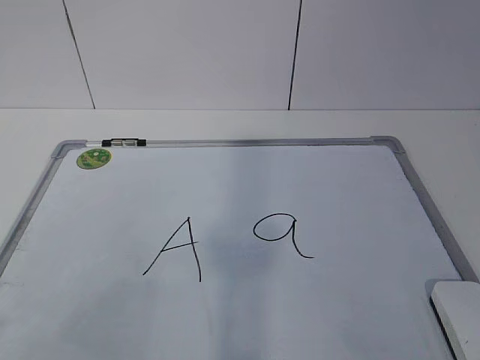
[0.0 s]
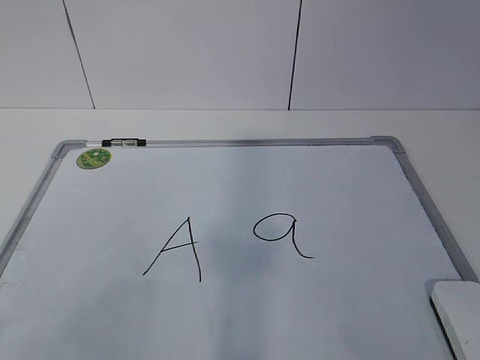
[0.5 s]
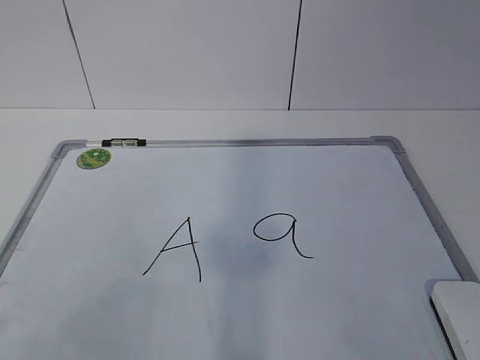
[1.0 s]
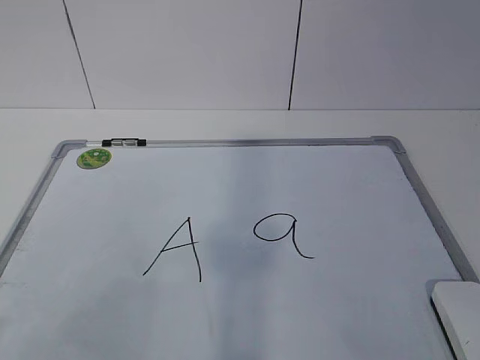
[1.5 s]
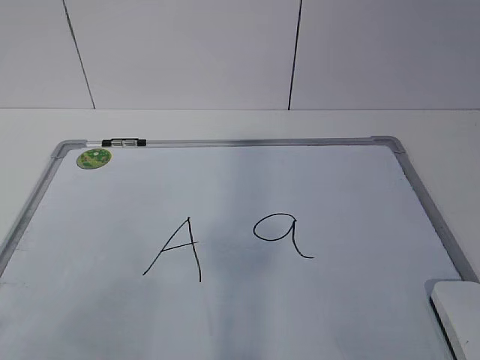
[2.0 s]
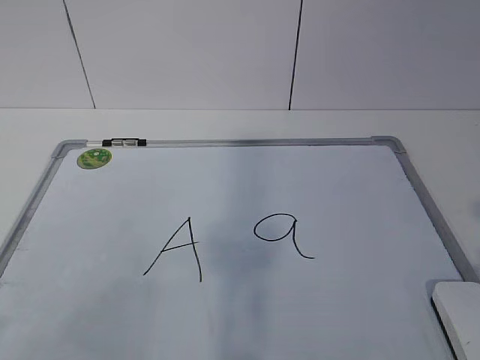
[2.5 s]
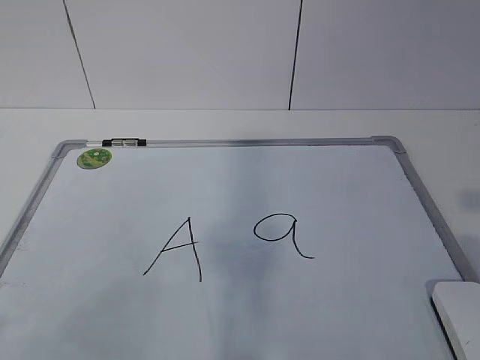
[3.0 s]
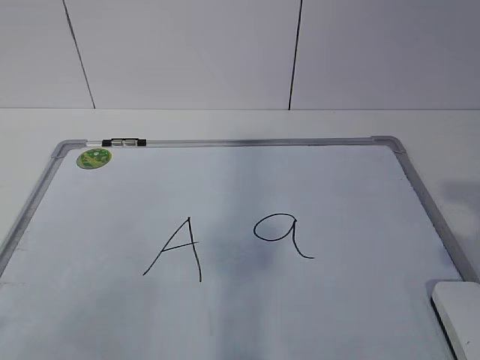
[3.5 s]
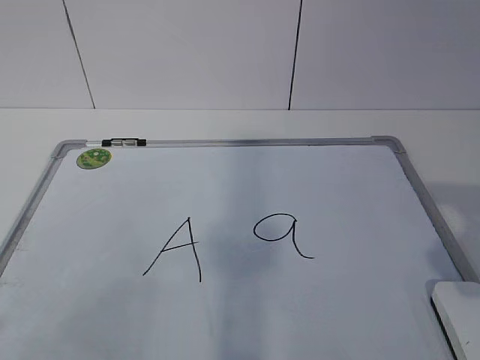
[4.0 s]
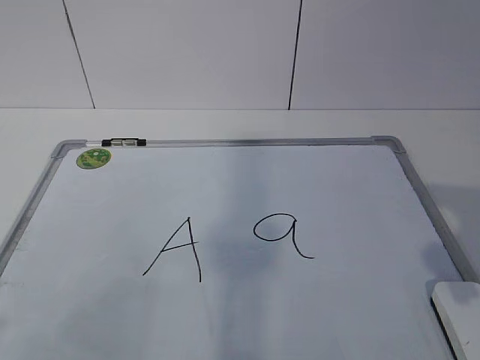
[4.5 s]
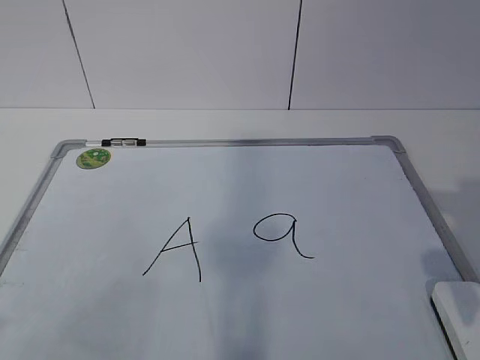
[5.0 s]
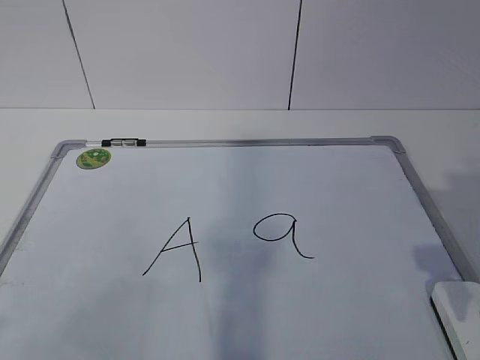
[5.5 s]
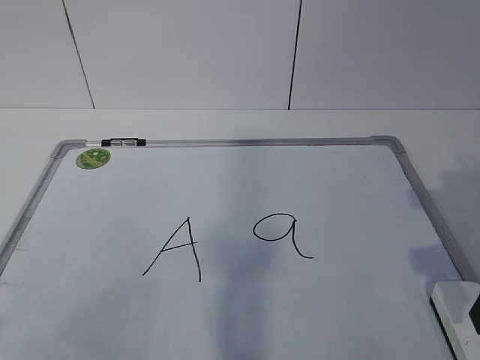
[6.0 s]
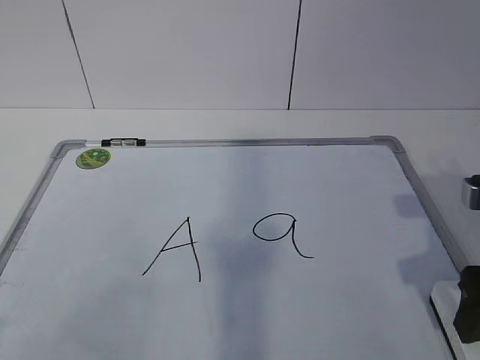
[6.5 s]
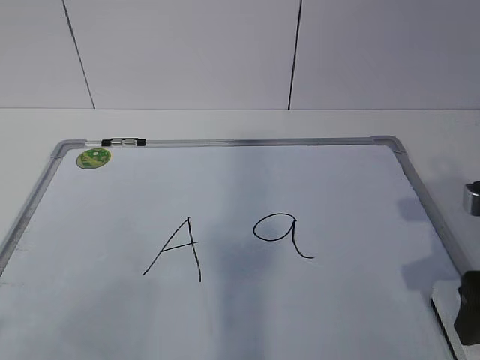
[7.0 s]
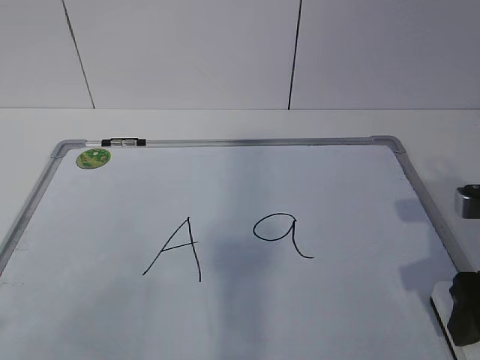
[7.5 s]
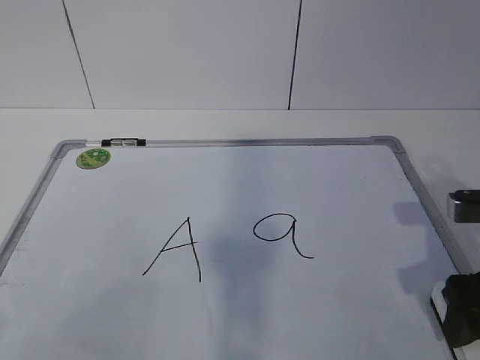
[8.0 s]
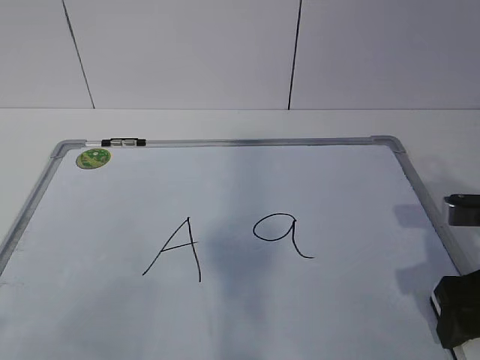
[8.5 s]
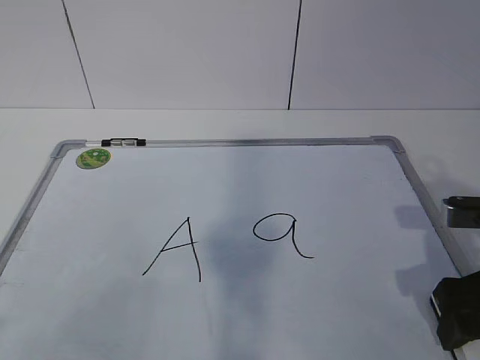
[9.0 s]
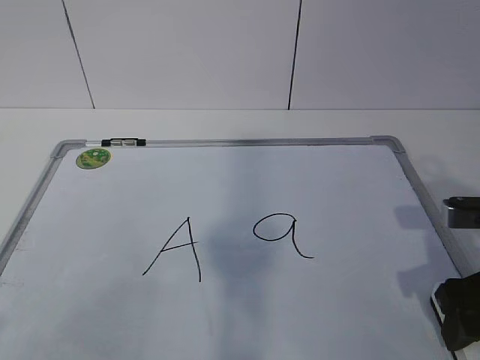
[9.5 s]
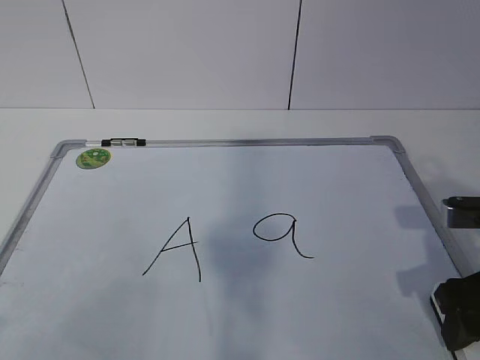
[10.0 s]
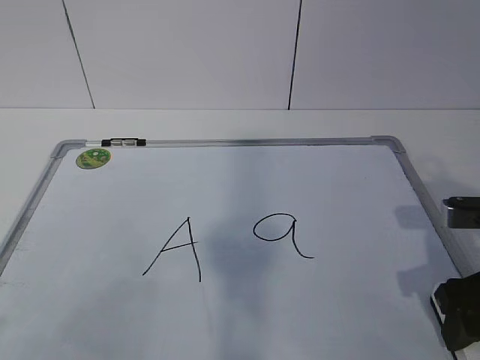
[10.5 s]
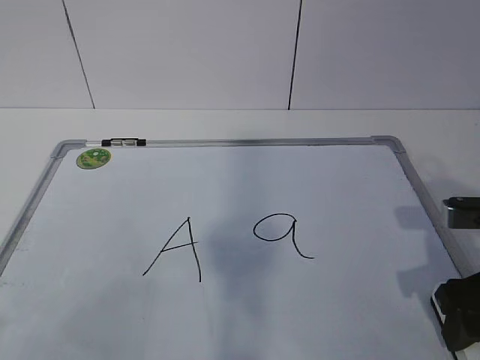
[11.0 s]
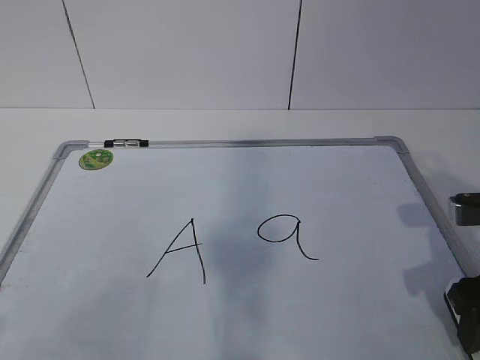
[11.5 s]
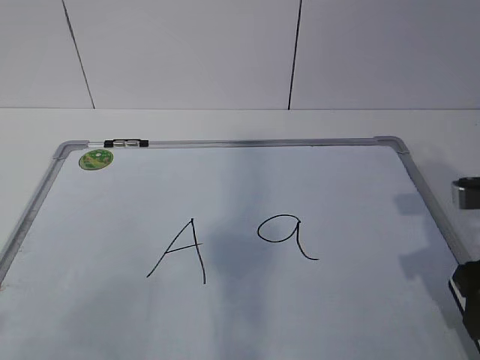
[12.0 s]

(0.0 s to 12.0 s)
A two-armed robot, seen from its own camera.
Task of the whole recording: pick up the eraser on the blackboard and erase the letter "a".
Step, 0.0 s - 7.5 s: Grab the eraser with your right hand.
4.0 s - 6.0 s: The right gripper moves forward and downward, approximately 10 cm, and opens.
6.0 s - 8.0 s: The grippers move only a little.
8.0 s - 10.0 s: The right gripper closes its fingers.
10.0 s - 12.0 s: The grippers stay close to where they were, moving slightly.

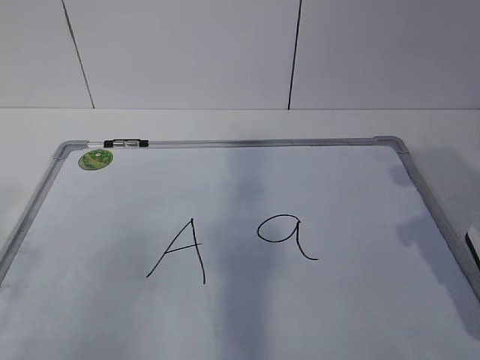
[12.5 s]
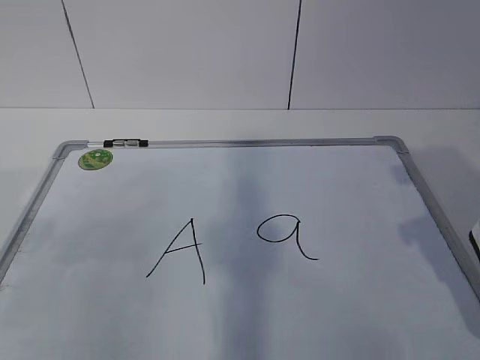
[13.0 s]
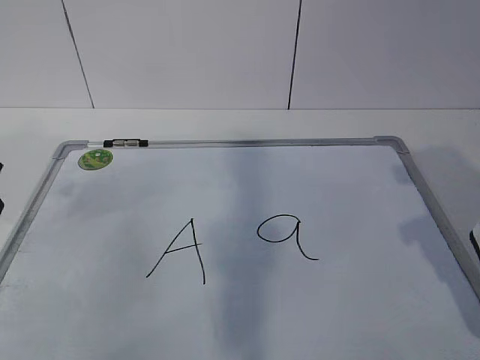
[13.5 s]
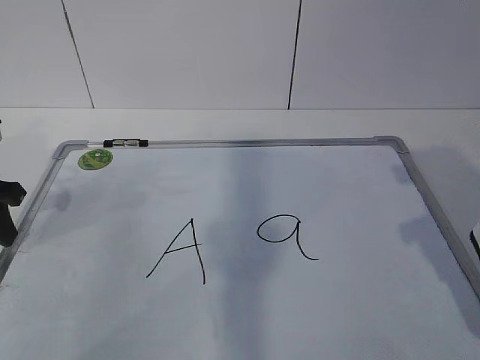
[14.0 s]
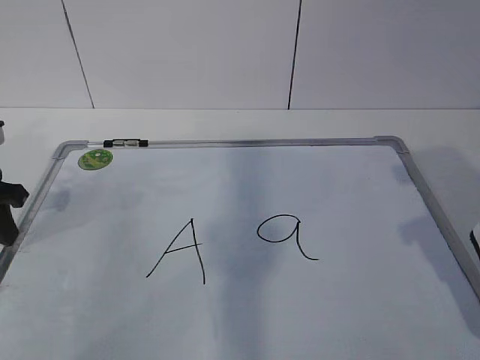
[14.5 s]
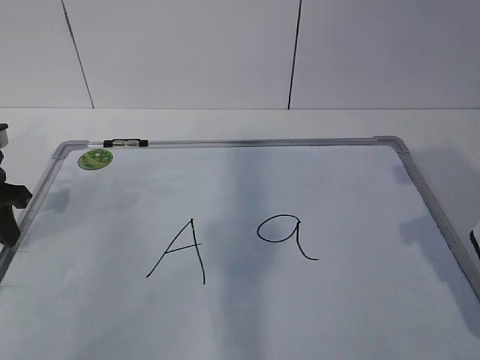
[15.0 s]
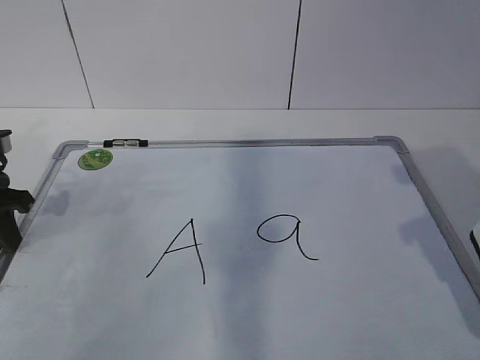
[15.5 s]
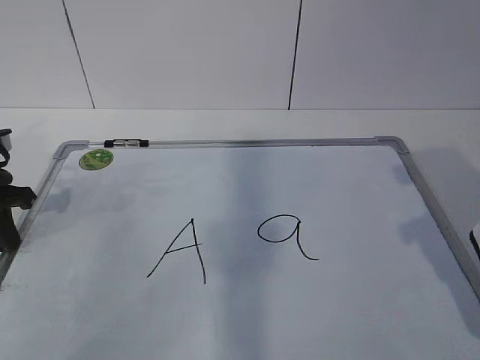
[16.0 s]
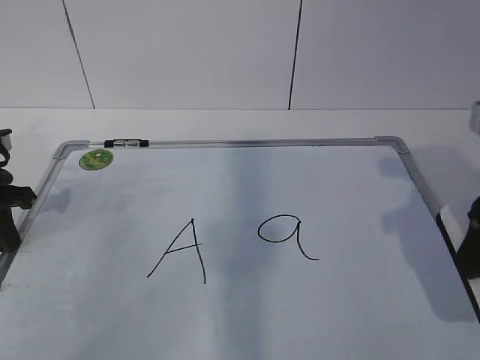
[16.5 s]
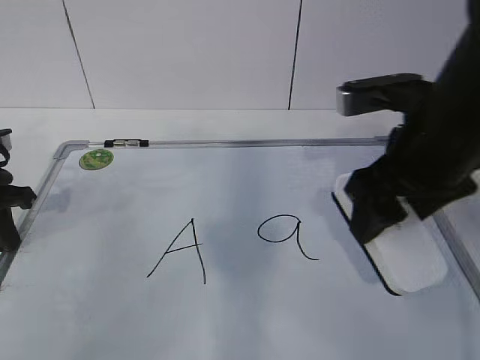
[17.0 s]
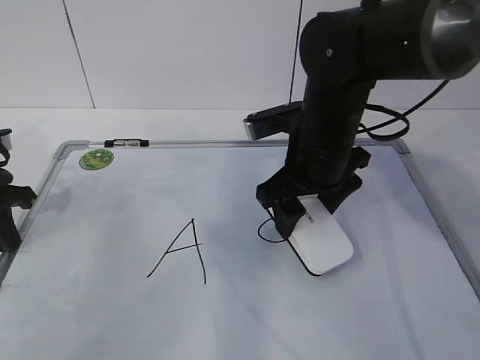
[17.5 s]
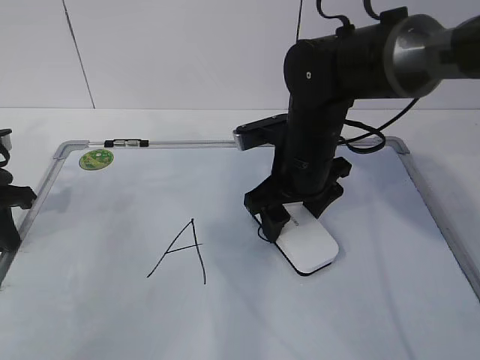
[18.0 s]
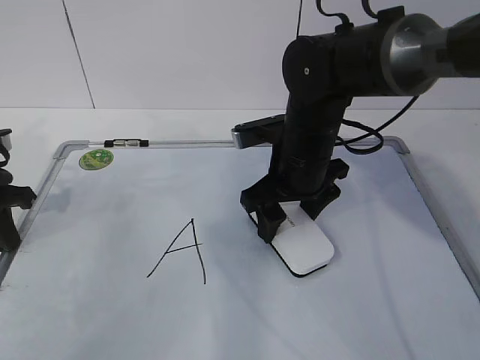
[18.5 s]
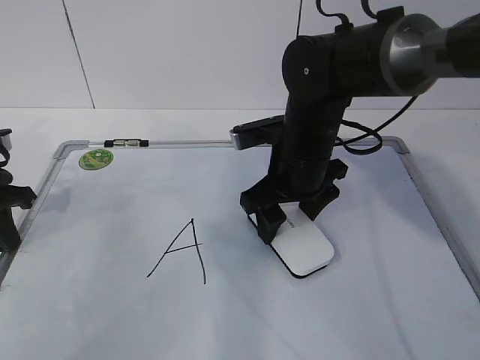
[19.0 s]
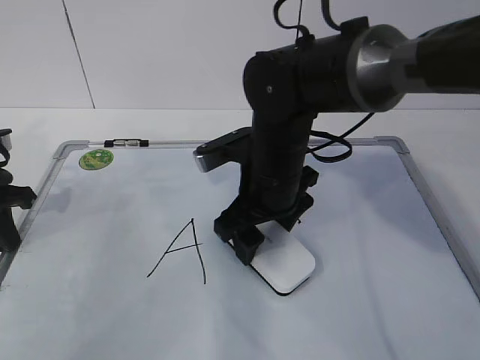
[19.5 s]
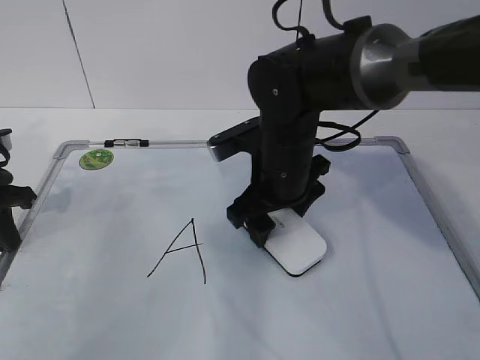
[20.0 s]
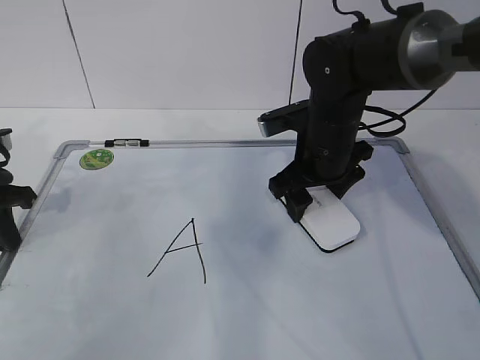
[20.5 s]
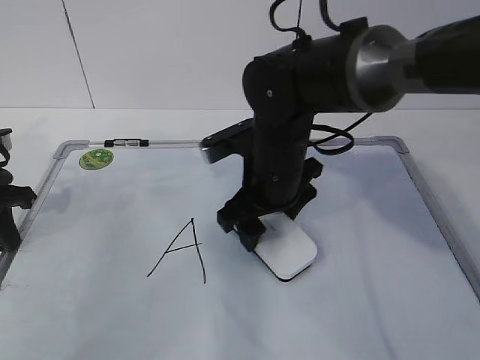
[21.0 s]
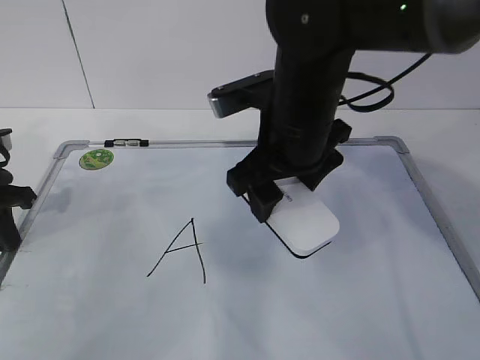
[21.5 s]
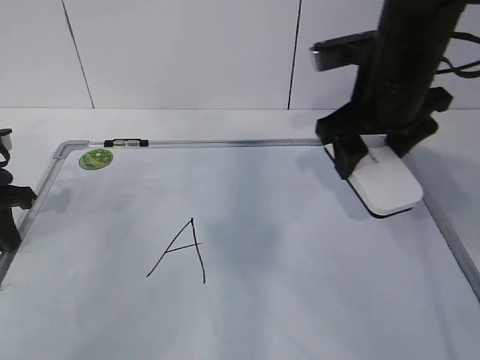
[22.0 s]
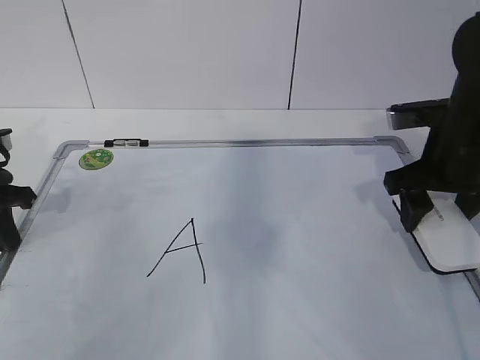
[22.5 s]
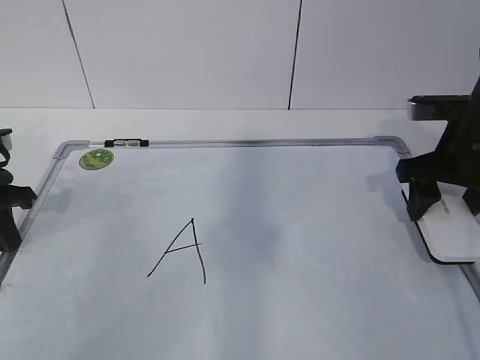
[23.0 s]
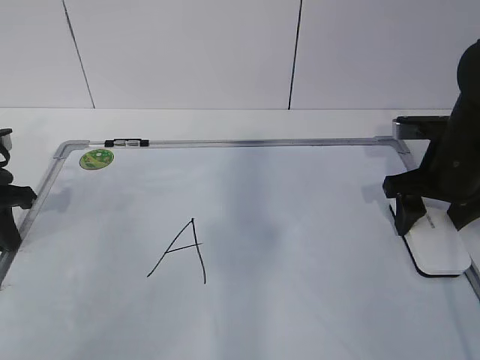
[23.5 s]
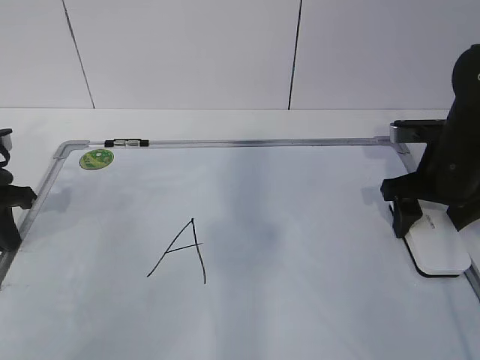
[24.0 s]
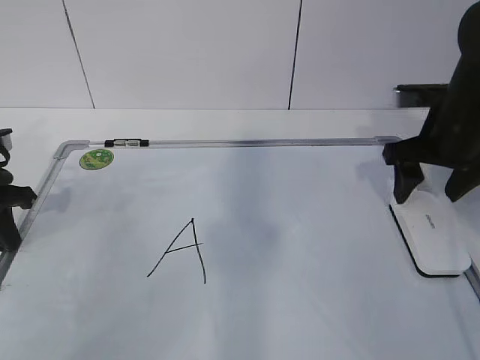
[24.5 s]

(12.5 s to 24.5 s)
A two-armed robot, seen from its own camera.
Task of the whole recording: pick up the eraser on the blackboard and erase the letter "a".
Step, 13.5 s - 17.5 s: Erase the letter a with your right hand.
Step, 18.0 s - 20.0 s: Put down the eraser with your right hand.
12.5 s - 14.5 s: The left gripper shifts approximately 25 cm forward and downward.
14.5 s - 16.5 s: The left gripper closes up.
16.5 s - 18.5 s: The right gripper heads to the left, forward and downward, covering some 25 cm.
18.5 s - 20.5 s: The grippers stay close to where they were, moving slightly.
20.5 s - 22.5 s: The right gripper goes about 15 cm to the right and backward.
22.5 s - 24.5 s: The right gripper opens its fingers.

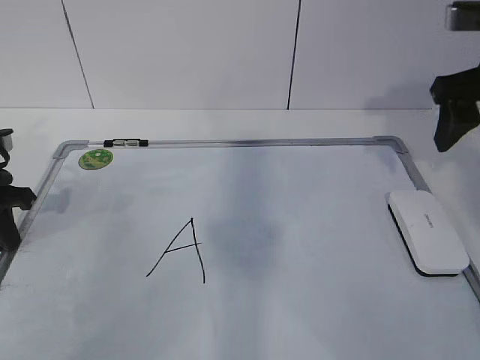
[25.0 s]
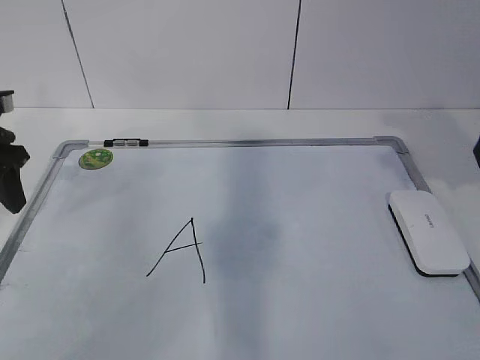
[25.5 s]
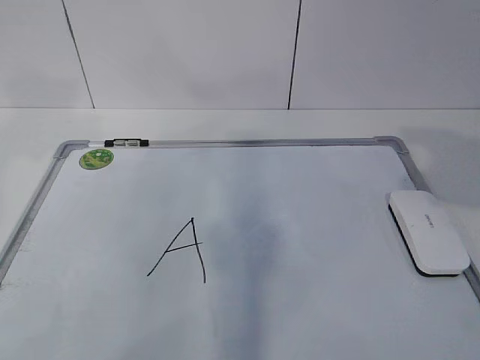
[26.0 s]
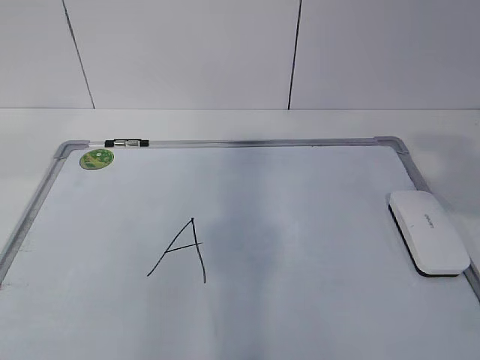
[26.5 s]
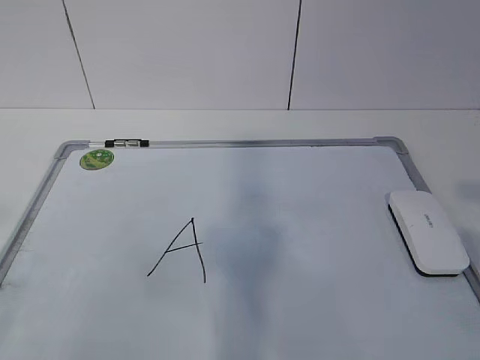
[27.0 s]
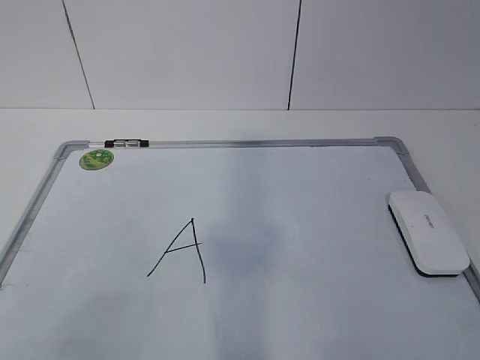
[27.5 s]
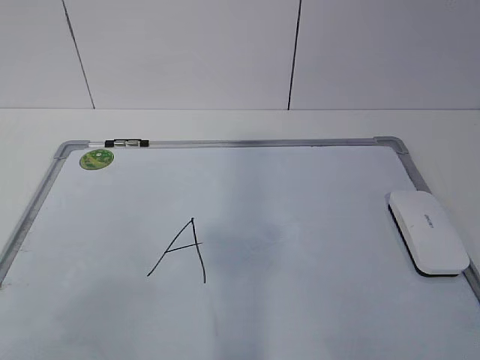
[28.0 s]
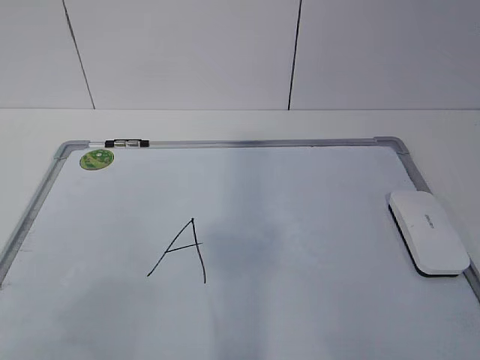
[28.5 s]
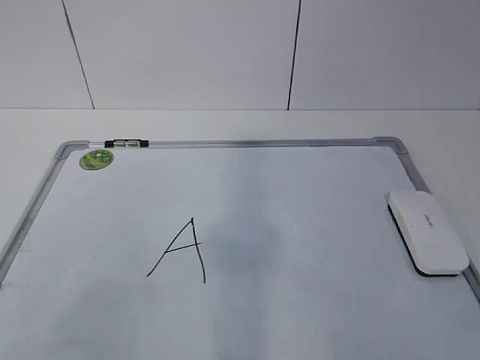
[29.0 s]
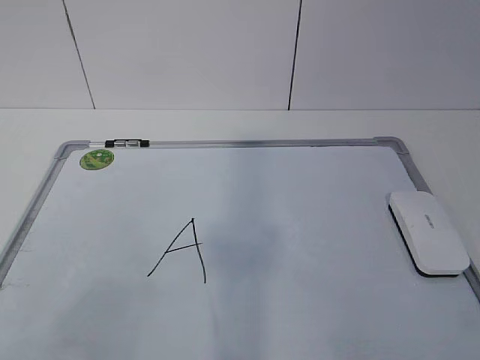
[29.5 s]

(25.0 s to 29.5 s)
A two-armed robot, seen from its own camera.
Task of the whole recording: pick up the eraser on the blackboard and erase the letter "a".
25.0 s - 27.0 s: The left gripper goes about 35 cm backward and upward, and opens up. The right gripper moves backward, some 25 cm.
